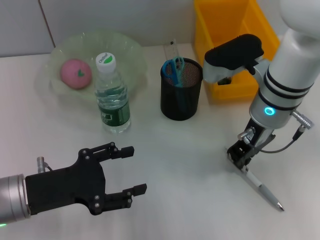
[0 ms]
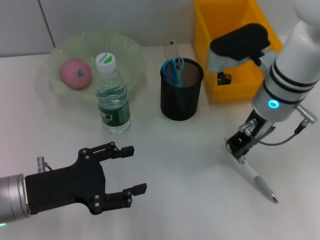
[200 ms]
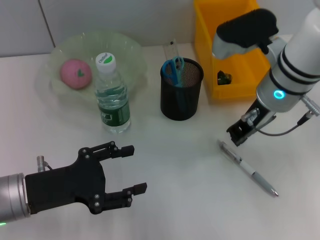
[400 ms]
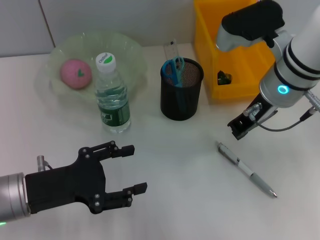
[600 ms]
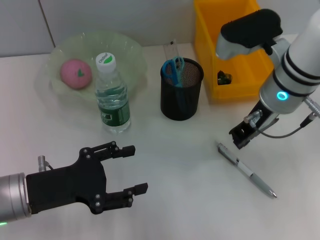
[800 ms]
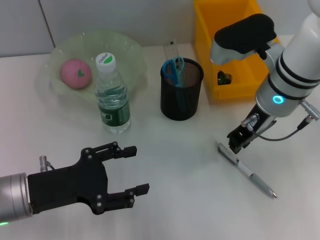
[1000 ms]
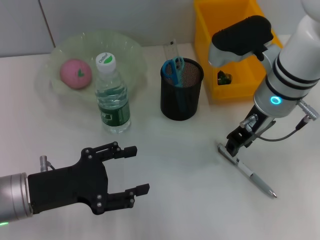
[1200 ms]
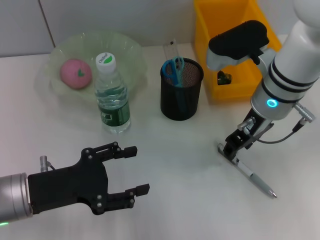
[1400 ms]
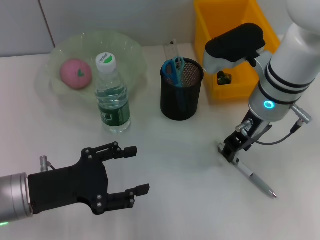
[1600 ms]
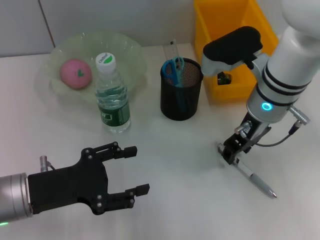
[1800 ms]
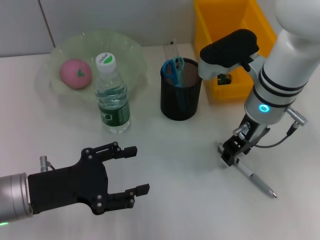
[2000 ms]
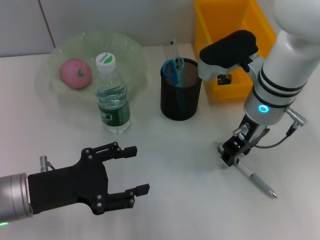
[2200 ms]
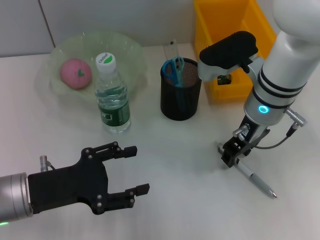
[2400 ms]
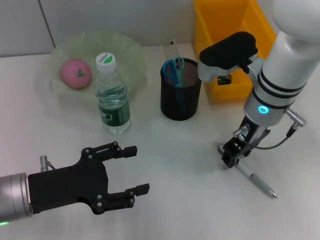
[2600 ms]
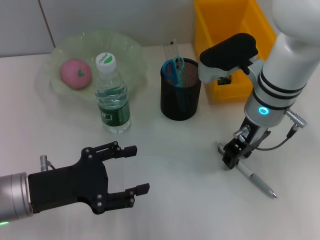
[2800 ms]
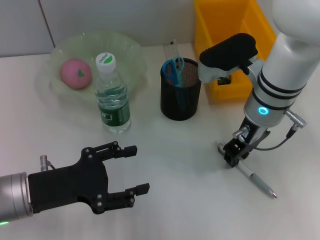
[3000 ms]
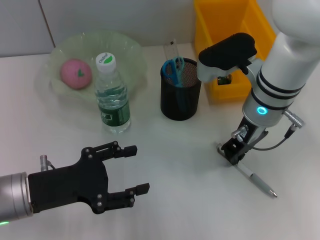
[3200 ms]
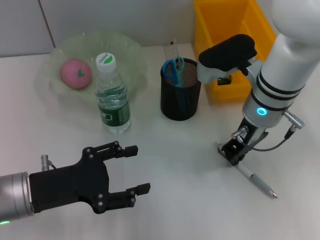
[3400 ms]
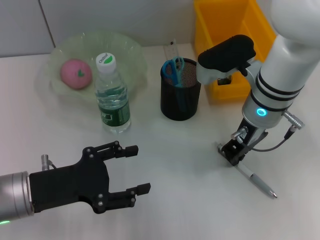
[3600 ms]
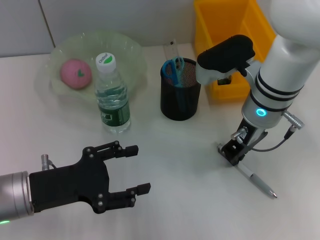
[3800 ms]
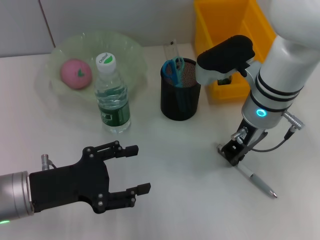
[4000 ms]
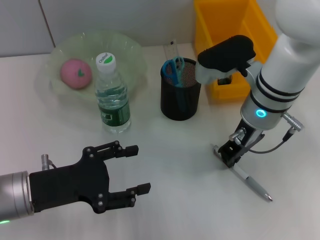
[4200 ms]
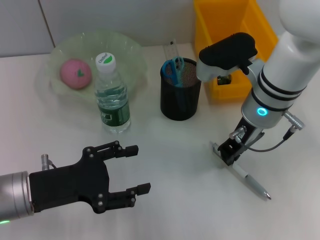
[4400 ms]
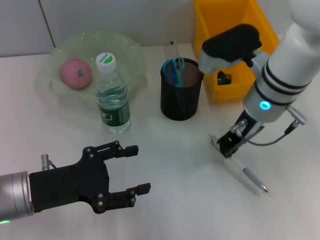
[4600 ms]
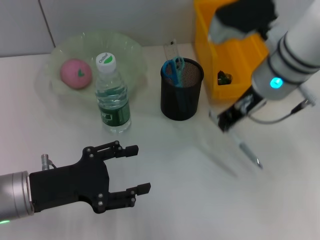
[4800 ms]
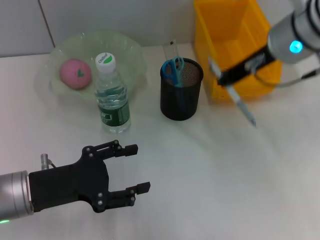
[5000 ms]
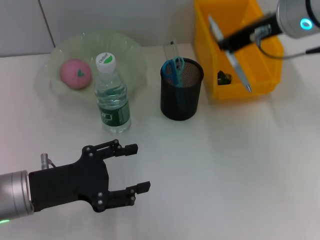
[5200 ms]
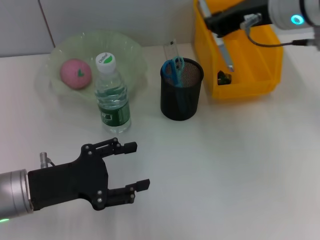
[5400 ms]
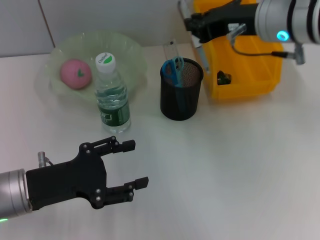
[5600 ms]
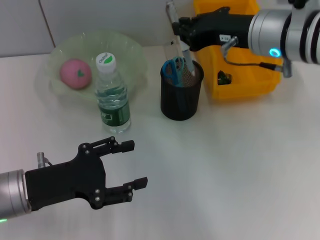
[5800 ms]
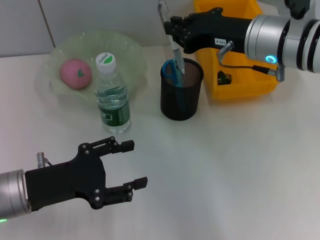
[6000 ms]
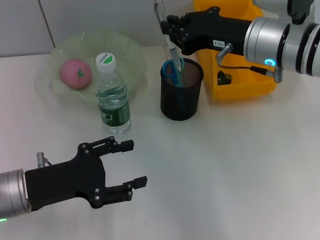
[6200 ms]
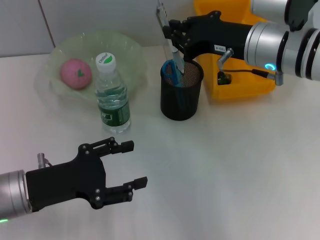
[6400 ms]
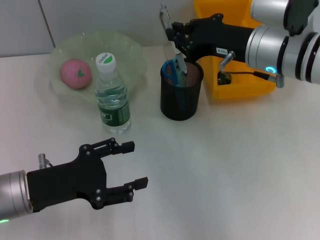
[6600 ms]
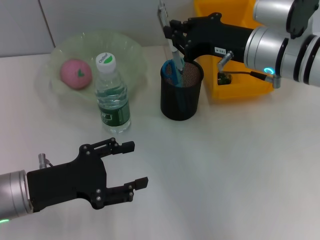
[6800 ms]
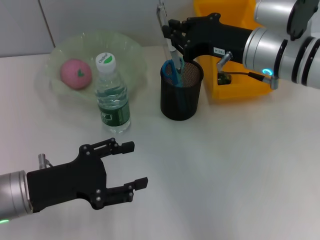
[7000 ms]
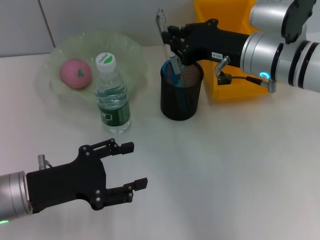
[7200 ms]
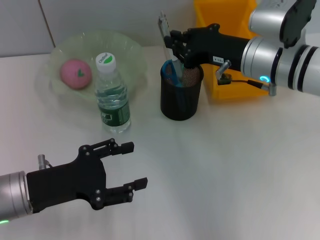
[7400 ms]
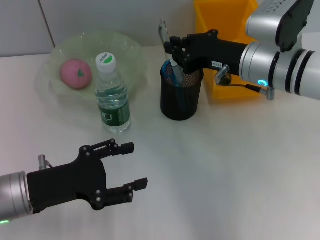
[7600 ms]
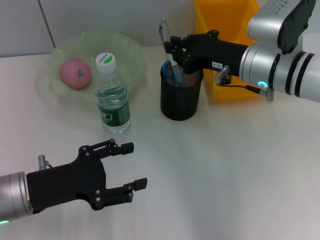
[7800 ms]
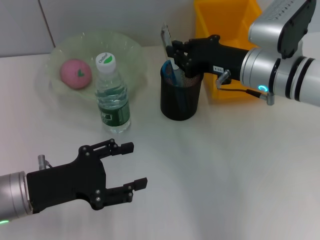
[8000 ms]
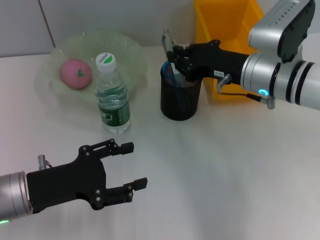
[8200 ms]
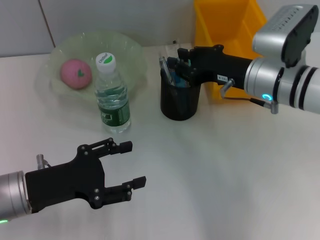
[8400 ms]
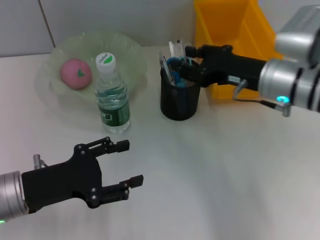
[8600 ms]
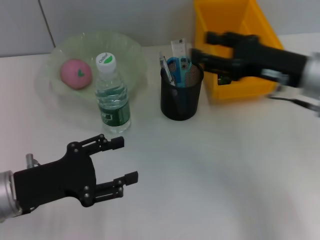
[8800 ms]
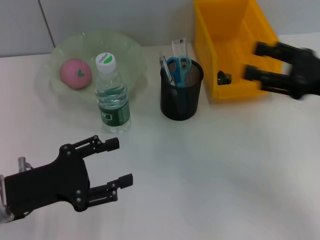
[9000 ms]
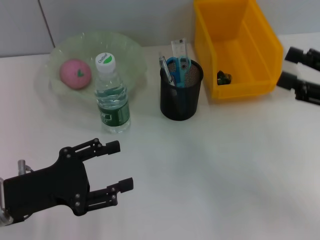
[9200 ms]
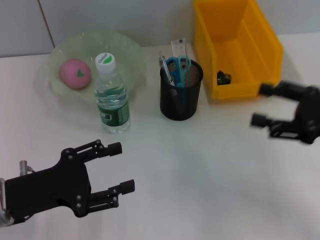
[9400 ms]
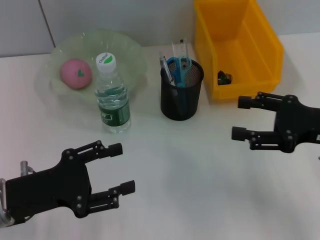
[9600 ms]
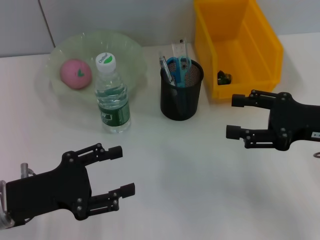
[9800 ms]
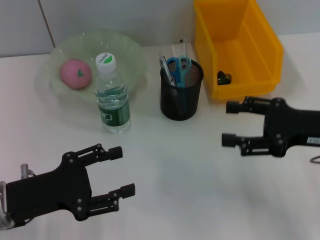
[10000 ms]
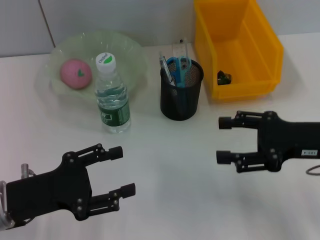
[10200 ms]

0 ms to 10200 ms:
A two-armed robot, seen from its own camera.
Step, 0 ms to 4000 ms: Grab the gray spring-action pen with the right hand.
Step, 4200 ms to 9000 ms: Place the gray spring-action pen into the pen holder with the right hand.
0 ms to 1400 ms: The right gripper opens.
1400 ms to 3000 ms: The grippers make only small movements.
3000 ms to 4400 ms: The right gripper closes its fingers.
4400 ms to 5800 ms: The right gripper heads upward, covering about 5 cm.
5800 ms to 7200 ms: The grippers move only a little.
7200 ms to 8800 ms: The right gripper goes about 5 cm to the right, and opens its fingers.
8800 ms to 10200 ms: The right gripper shifts some 5 cm backward, and opens up.
